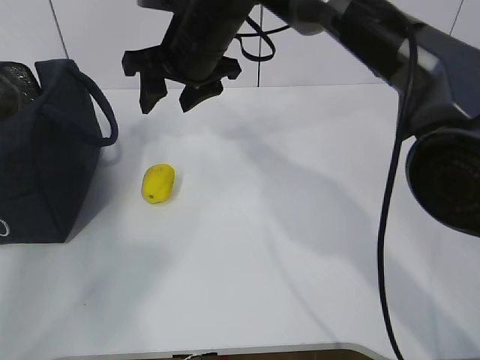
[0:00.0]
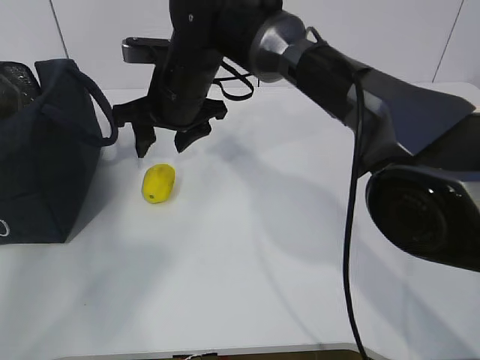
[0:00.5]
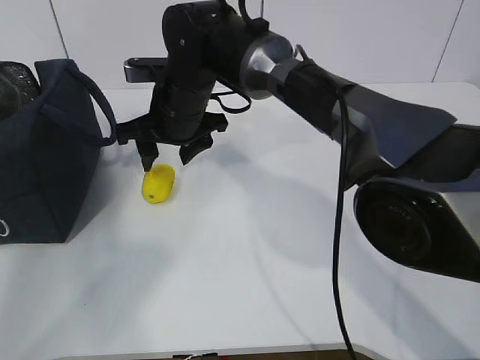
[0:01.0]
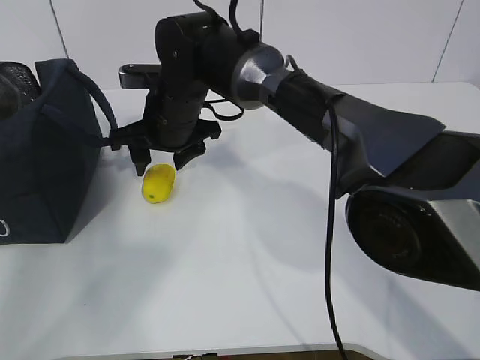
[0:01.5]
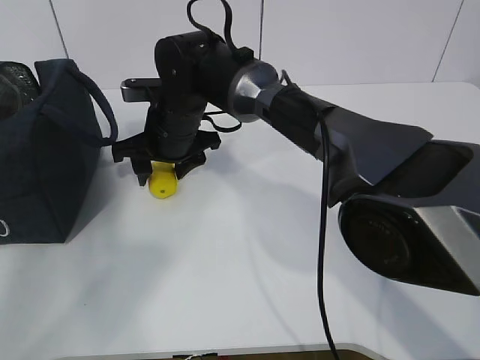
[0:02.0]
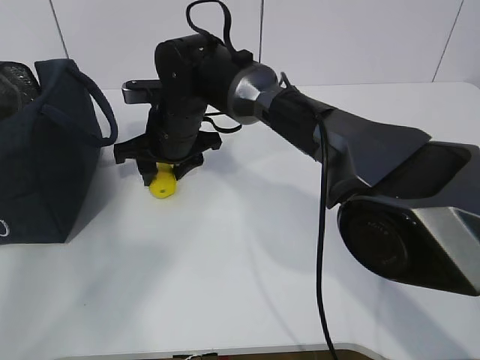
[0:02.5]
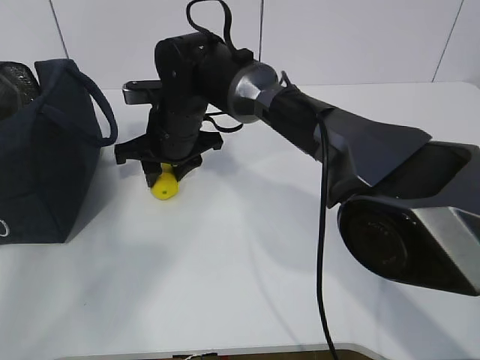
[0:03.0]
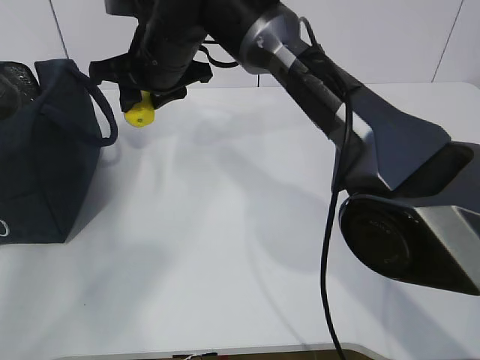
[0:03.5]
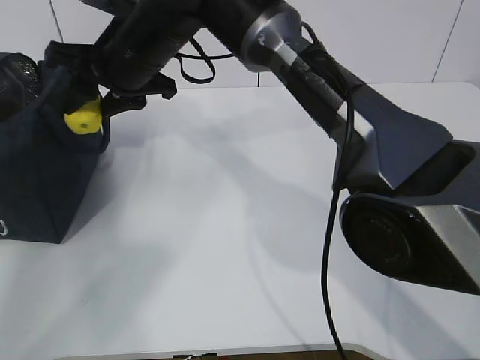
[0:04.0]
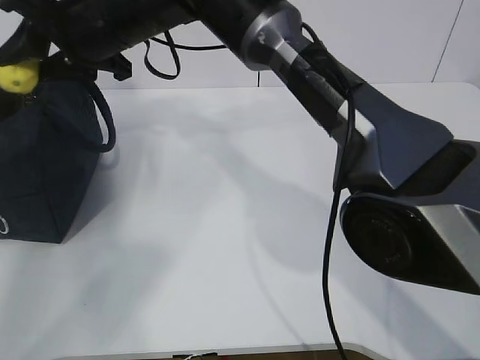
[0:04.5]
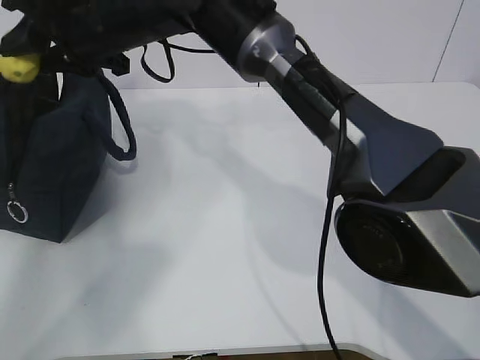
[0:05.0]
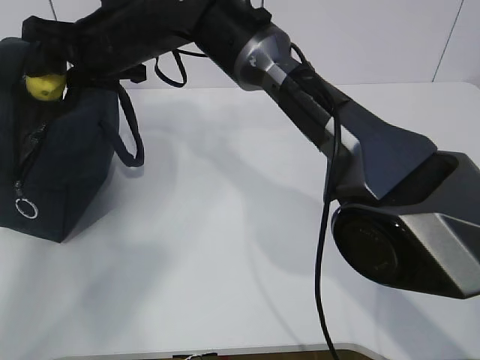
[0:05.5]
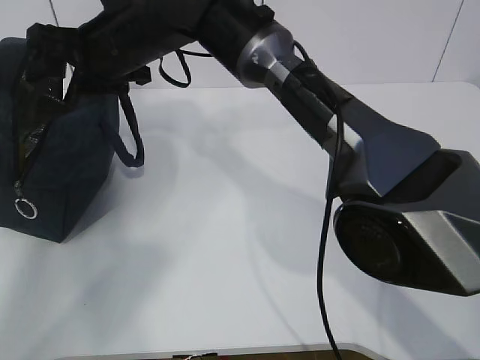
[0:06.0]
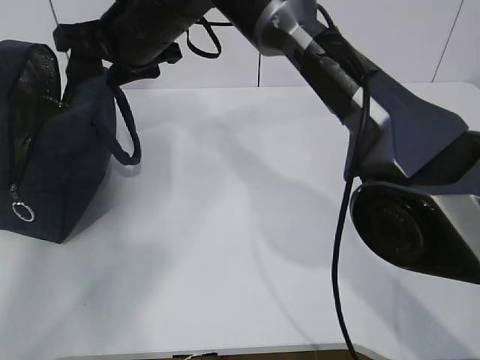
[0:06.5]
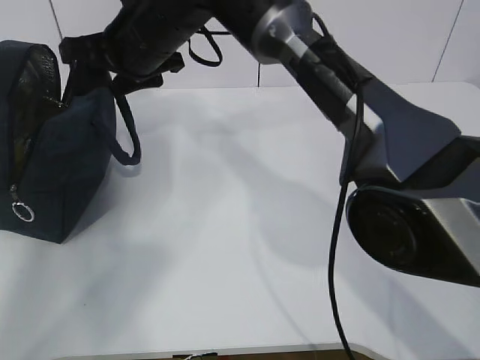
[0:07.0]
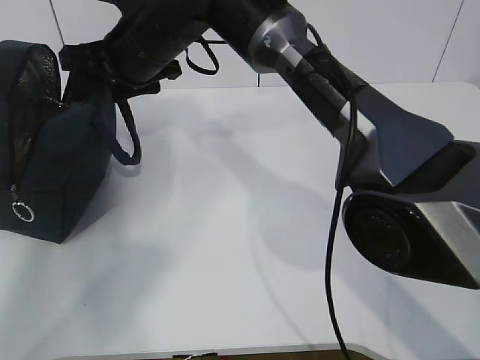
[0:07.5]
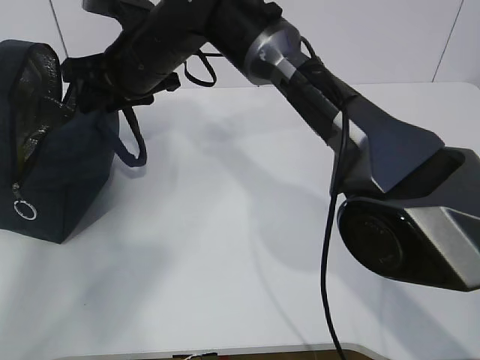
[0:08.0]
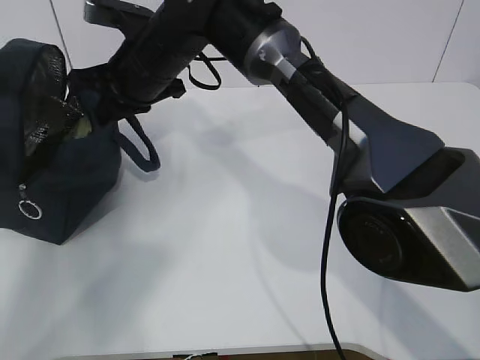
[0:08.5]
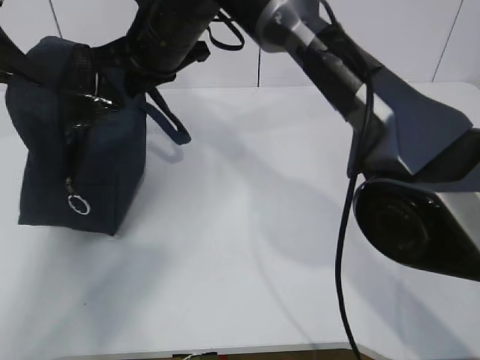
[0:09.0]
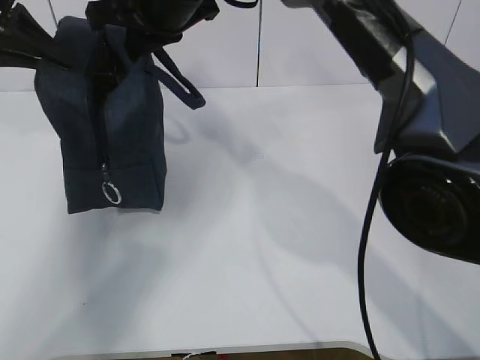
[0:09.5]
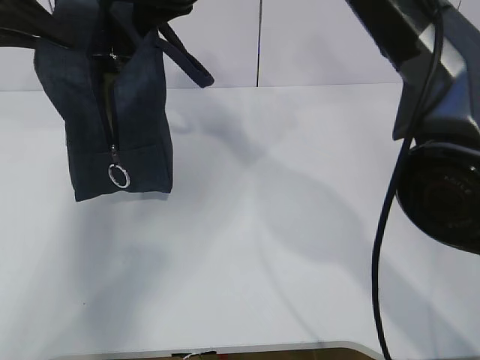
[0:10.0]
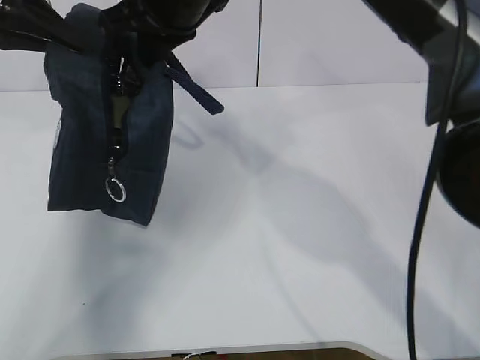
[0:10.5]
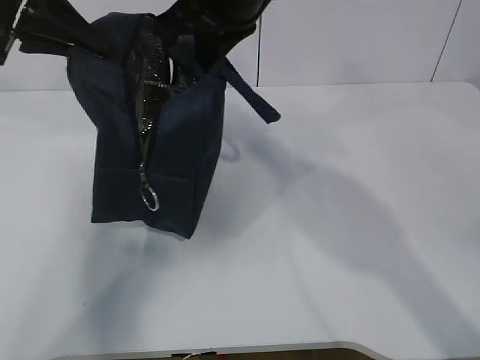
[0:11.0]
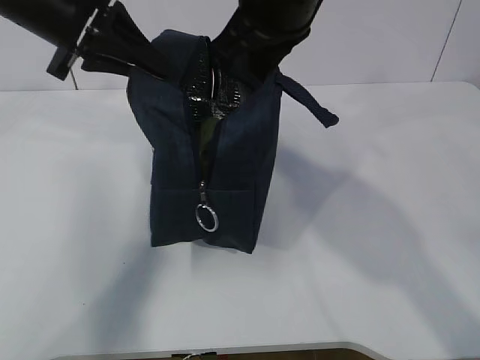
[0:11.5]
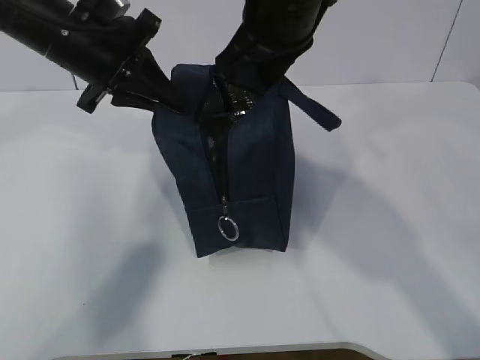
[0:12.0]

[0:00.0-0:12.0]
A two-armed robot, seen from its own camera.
Step, 0:00.0 to 0:03.5: Move the lunch bag to the right.
0:00.0 to 0:02.0: The right gripper moves downward, about 10 cm.
0:02.0 to 0:04.0: The right gripper moves upward, about 10 cm.
0:04.0 to 0:06.0: The right gripper opens.
0:06.0 to 0:08.0: The right gripper closes its fingers.
0:08.0 to 0:10.0: The left gripper shifts about 10 cm to the right. The right gripper moves upward and to the right, approximately 10 cm, and closes its fingers.
0:10.0 to 0:12.0: The right gripper heads to the right and backward, covering roughly 10 cm; the left gripper travels to the right and downward by some 15 cm.

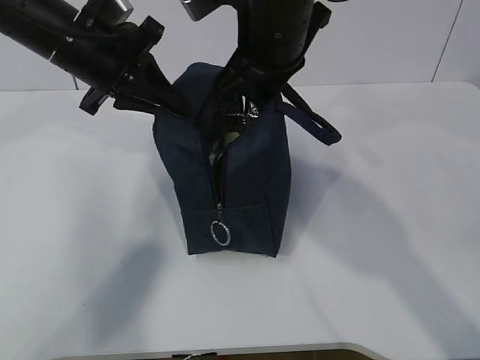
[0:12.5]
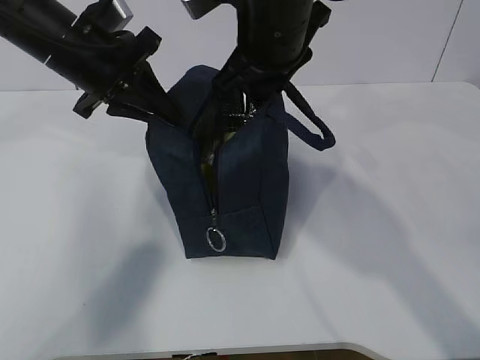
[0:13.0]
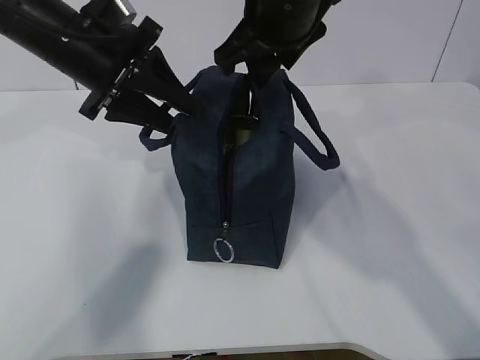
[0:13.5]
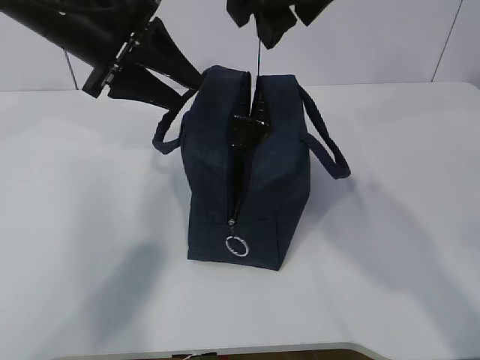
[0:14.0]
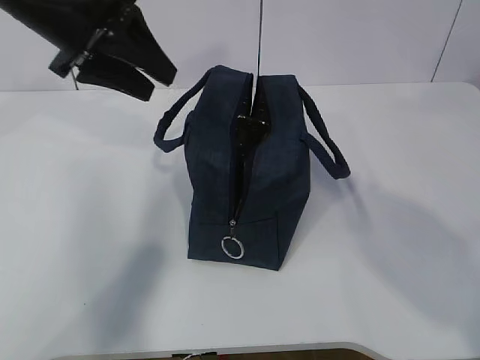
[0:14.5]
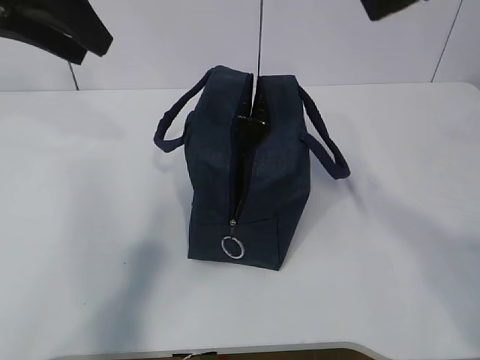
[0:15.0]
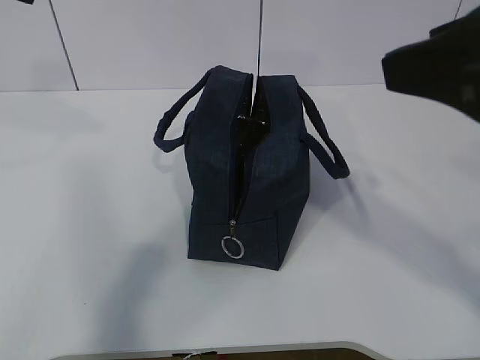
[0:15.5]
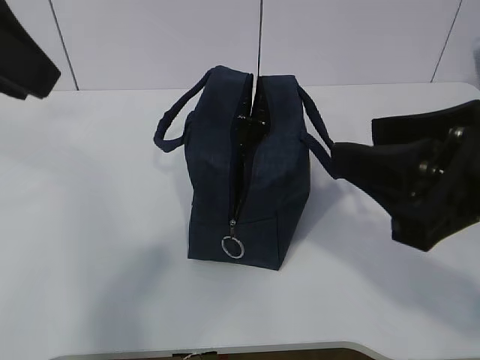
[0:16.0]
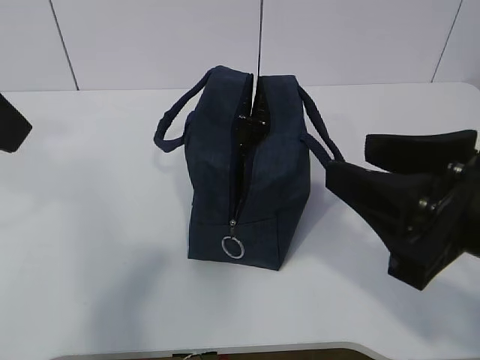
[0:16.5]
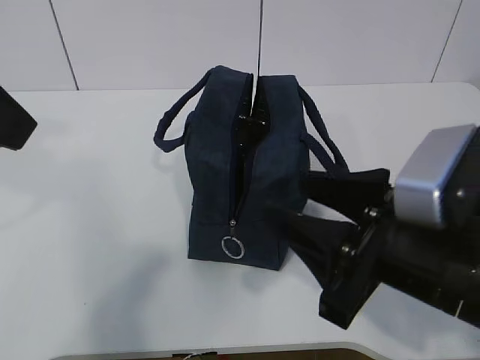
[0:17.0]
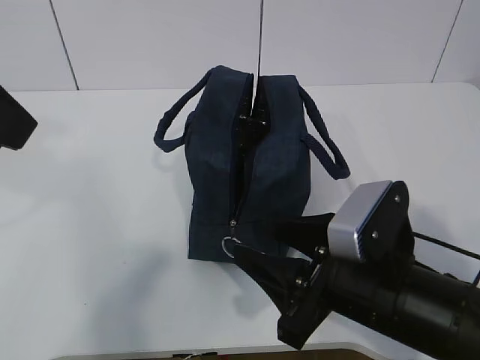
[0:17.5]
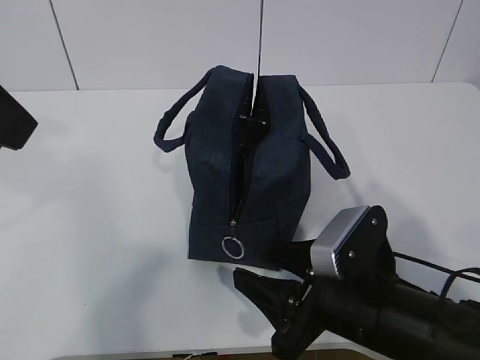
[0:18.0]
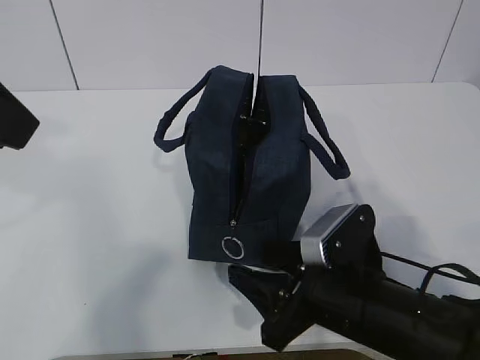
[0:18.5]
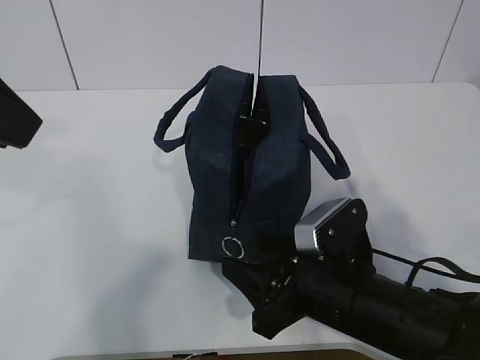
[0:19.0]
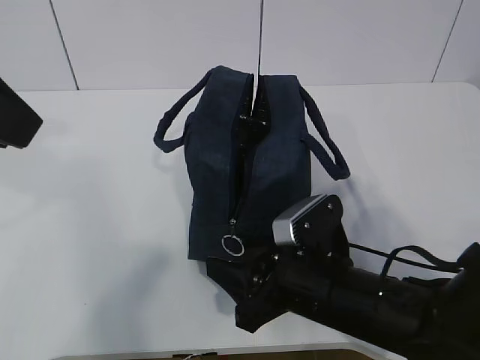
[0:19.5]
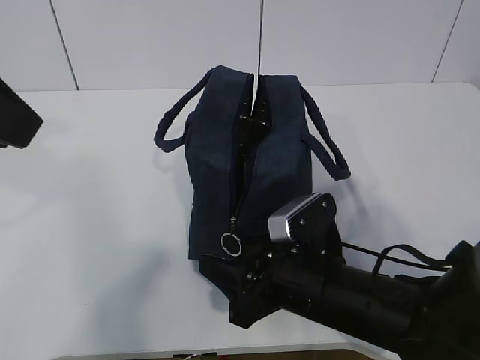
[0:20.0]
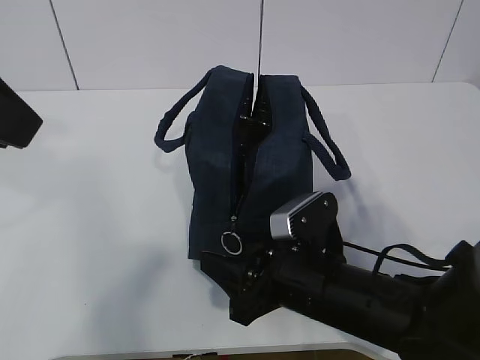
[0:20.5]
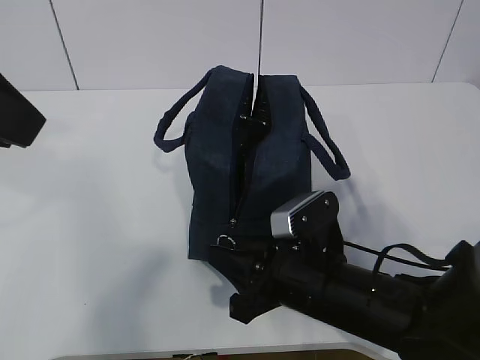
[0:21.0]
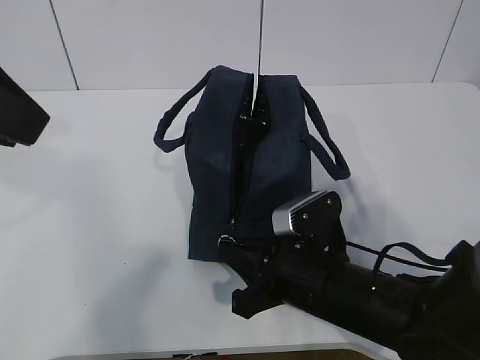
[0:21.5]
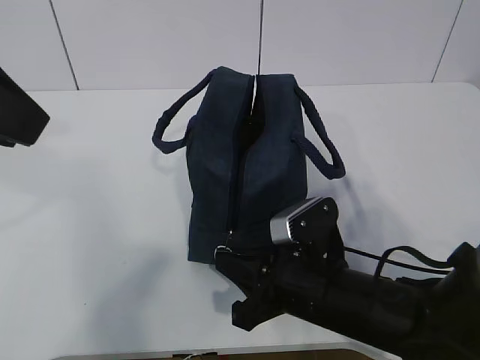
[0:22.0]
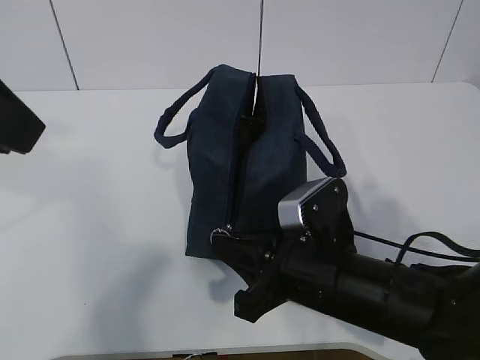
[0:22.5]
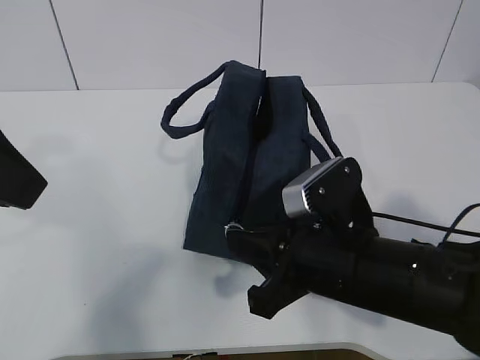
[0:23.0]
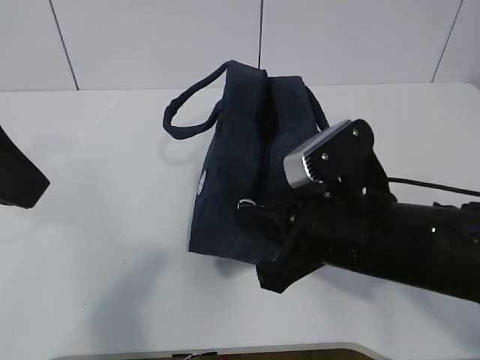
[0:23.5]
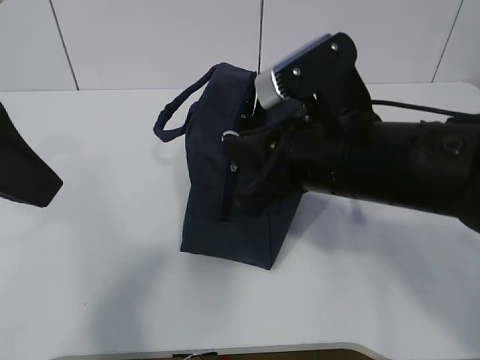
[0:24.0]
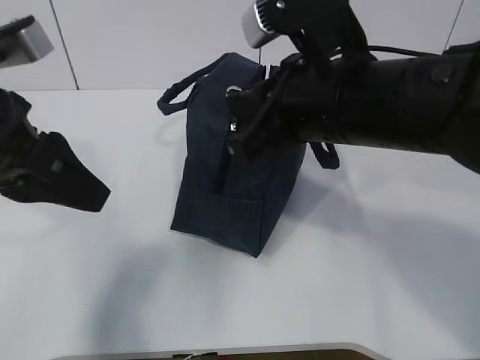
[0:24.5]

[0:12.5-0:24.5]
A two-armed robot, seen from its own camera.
Step, 0:12.5 to 0:14.5: Grab the lunch bag with your left hand.
Step, 0:15.5 to 0:17.5: Grab the lunch bag with your left hand.
Step, 0:18.0 to 0:22.5: Pull the zipper with your right hand.
0:12.5 to 0:14.5: The left gripper changes place by about 5 cm, and opens up, while the right gripper shifts about 15 cm upward and backward, and opens up.
0:14.5 to 0:16.5: The left gripper is displaced backward by roughly 15 cm. Meanwhile the right gripper heads downward and backward, covering roughly 25 cm.
0:16.5 to 0:18.5: The right gripper heads downward, covering approximately 15 cm.
0:18.5 to 0:20.5: The grippers make only small movements.
0:20.5 to 0:22.5: The right gripper closes up.
0:22.5 to 0:24.5: The right gripper heads upward, covering roughly 15 cm. Meanwhile the left gripper goes about 10 cm downward.

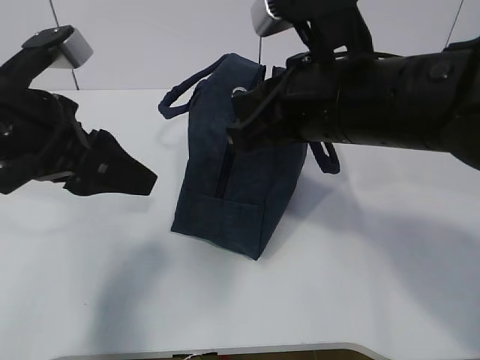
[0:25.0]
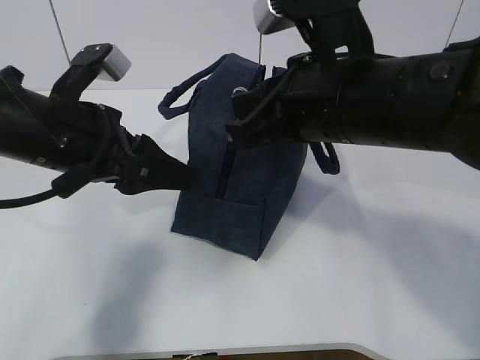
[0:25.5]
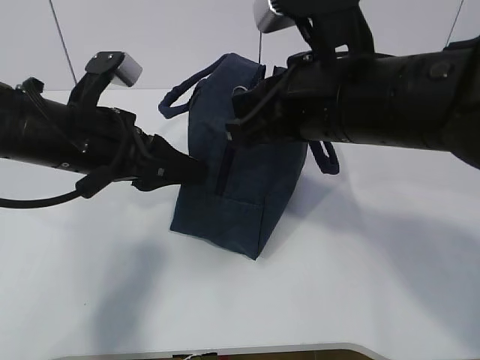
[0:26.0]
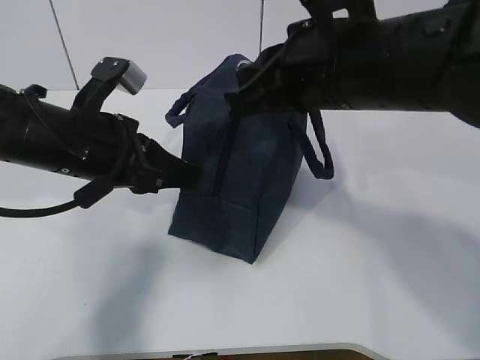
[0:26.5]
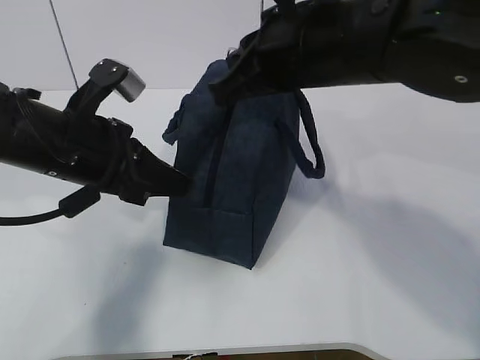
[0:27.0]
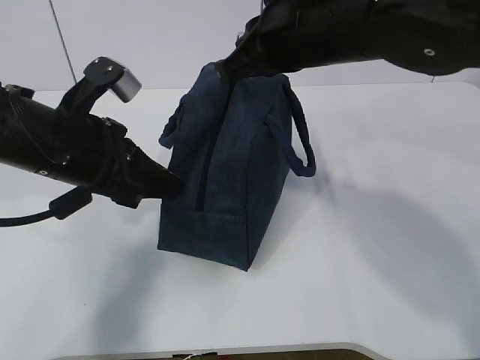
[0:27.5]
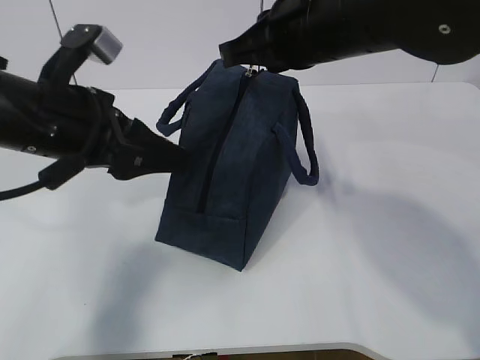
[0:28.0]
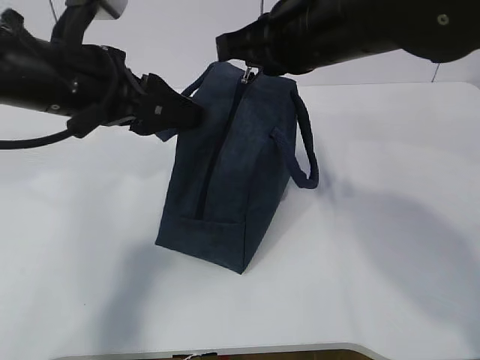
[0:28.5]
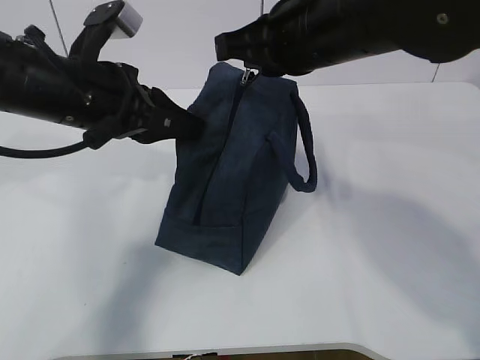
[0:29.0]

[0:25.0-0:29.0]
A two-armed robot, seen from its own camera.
0:25.0 to 0:27.0: The left gripper goes about 5 cm downward, and closes.
0:27.0 to 0:29.0: The left gripper opens and closes again.
